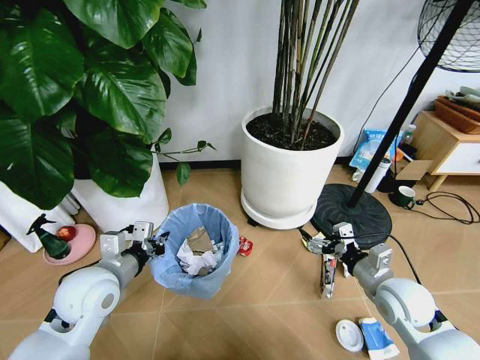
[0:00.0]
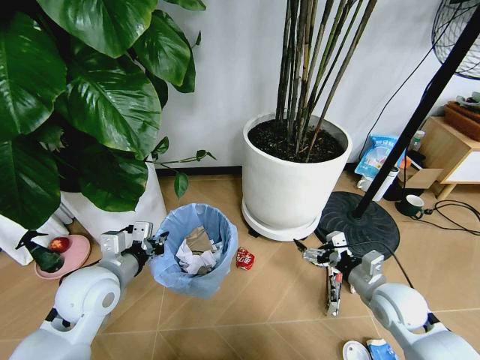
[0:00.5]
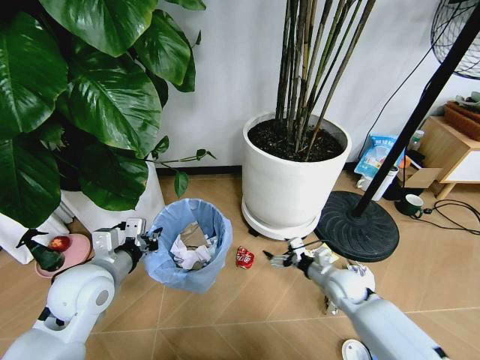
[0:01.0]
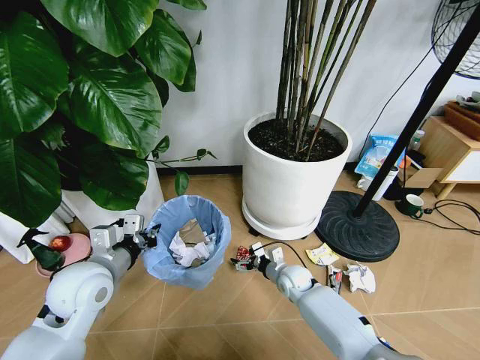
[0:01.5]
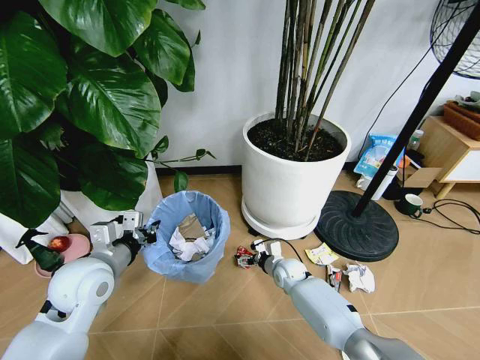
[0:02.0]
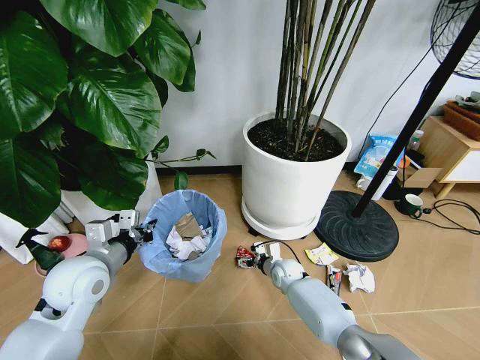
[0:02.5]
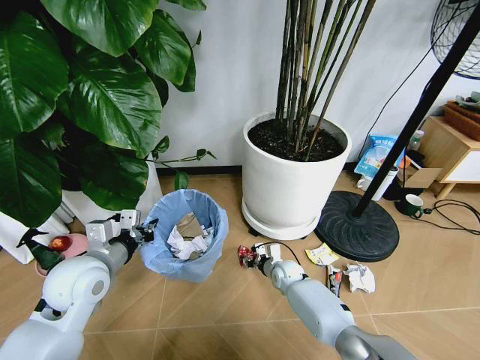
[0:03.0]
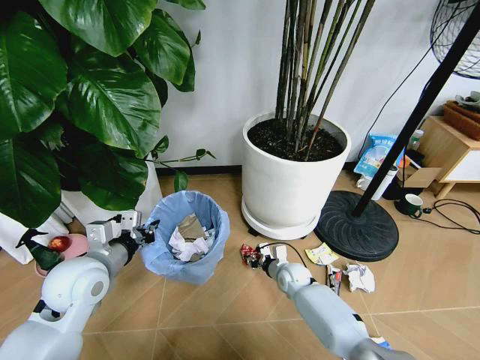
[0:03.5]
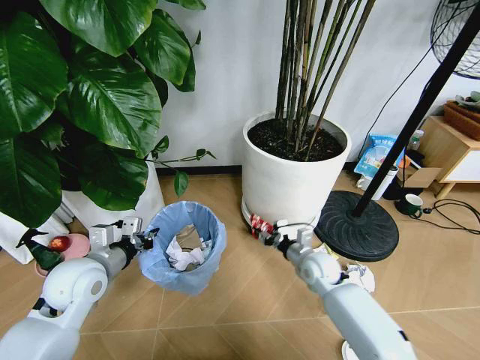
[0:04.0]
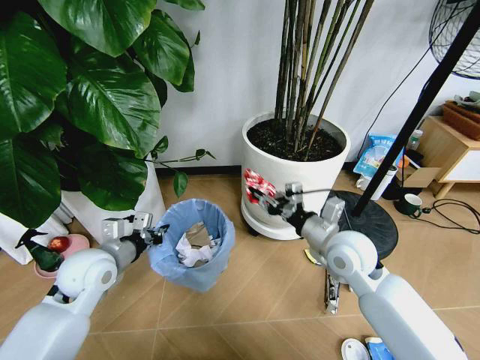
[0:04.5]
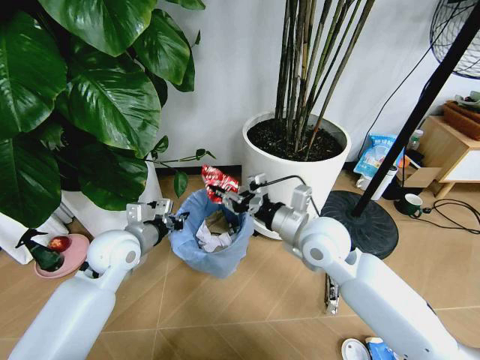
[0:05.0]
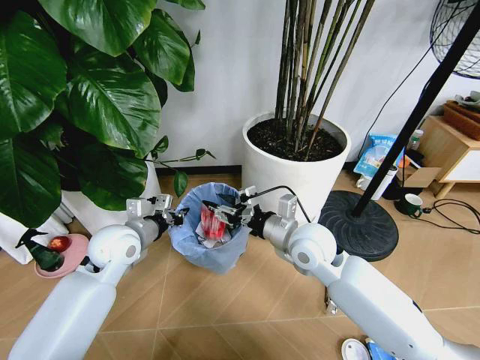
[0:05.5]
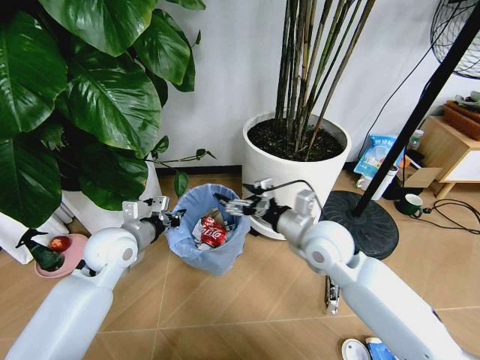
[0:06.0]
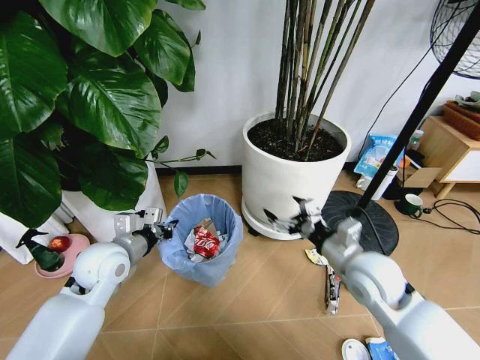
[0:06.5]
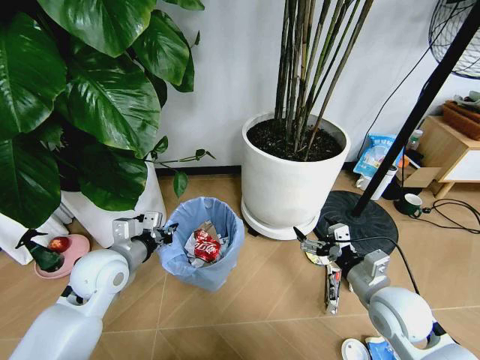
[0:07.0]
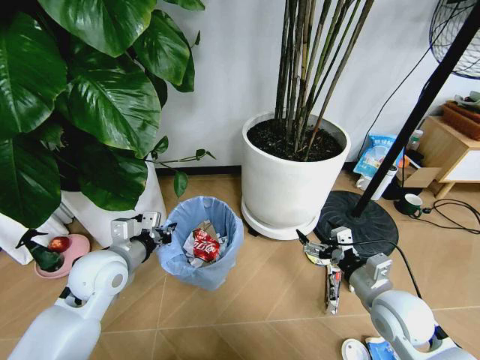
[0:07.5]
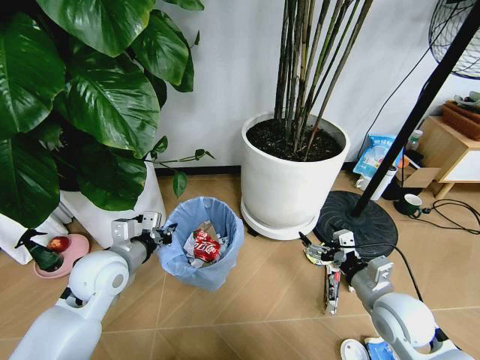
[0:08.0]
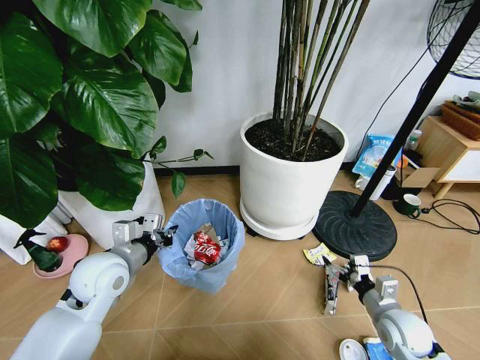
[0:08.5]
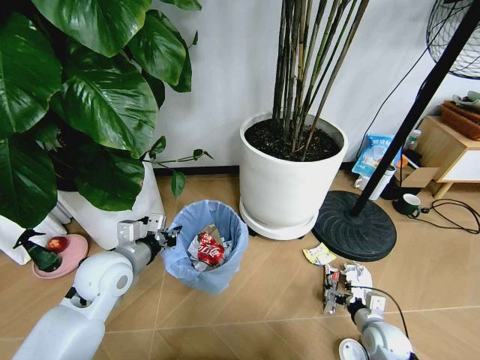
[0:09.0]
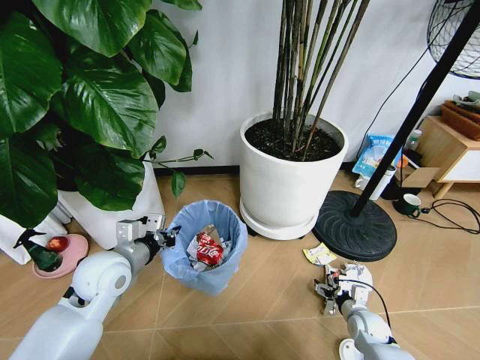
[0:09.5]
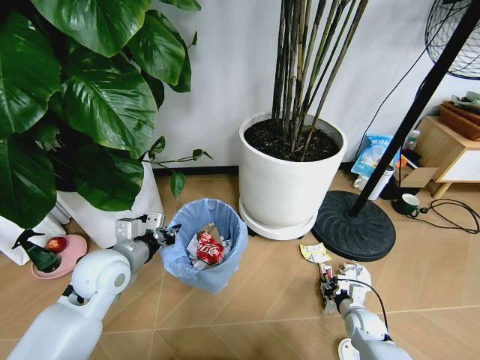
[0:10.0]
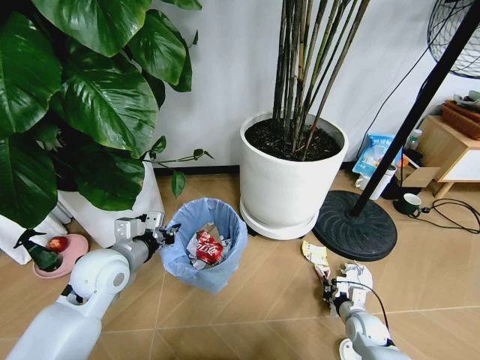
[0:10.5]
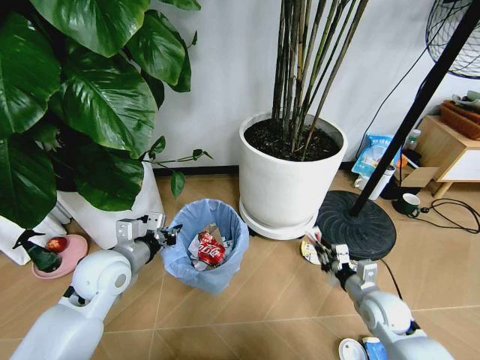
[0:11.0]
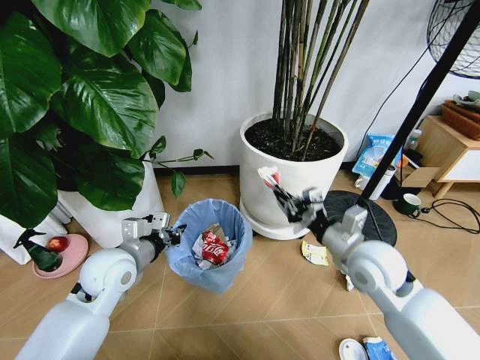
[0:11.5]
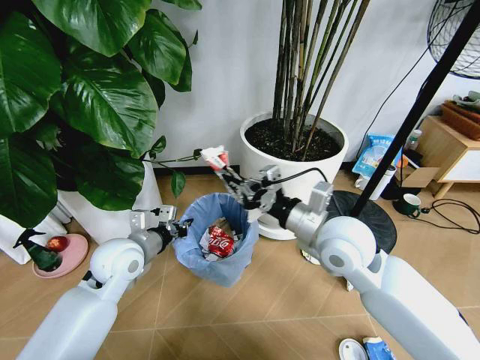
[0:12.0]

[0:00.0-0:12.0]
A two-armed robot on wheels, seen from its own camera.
Task of the whole recording: Pick up the trash bin and place the garbage on the floor into it.
0:00.0 to 0:02.0: The right gripper heads downward, to the left and forward, covering some 30 cm.
0:02.0 to 0:04.0: The right gripper shifts some 15 cm upward and to the right, and closes up.
0:04.0 to 0:06.0: The left gripper goes roughly 5 cm forward; the right gripper shifts about 15 cm upward, and opens.
0:06.0 to 0:08.0: The right gripper travels to the right, backward and downward by some 20 cm. The left gripper heads backward, covering some 5 cm.
0:08.0 to 0:10.0: The right gripper is displaced downward by roughly 25 cm, and closes up.
0:10.0 to 0:12.0: The right gripper shifts roughly 40 cm upward and to the left, and closes.

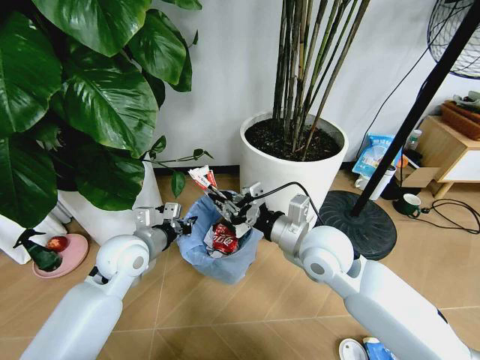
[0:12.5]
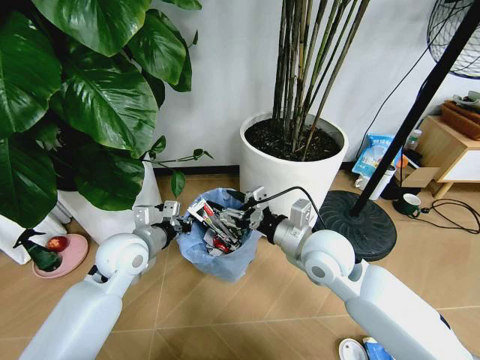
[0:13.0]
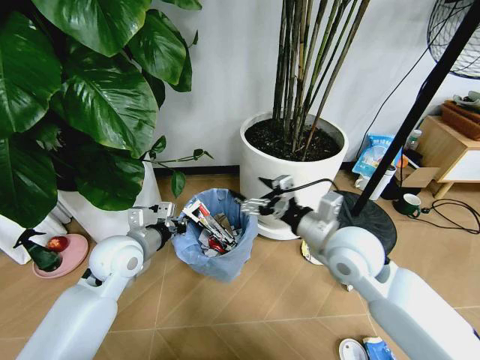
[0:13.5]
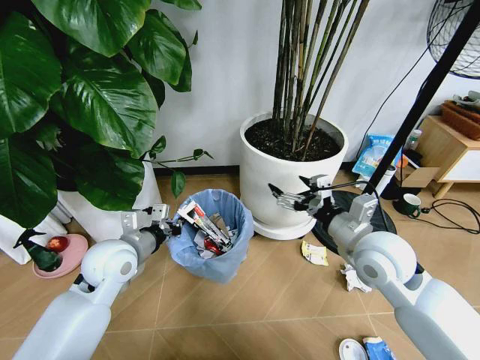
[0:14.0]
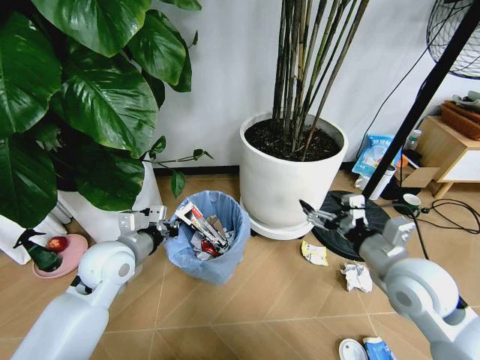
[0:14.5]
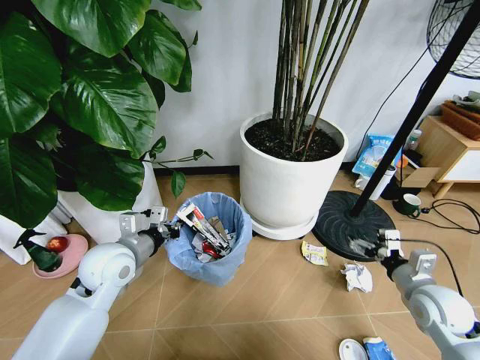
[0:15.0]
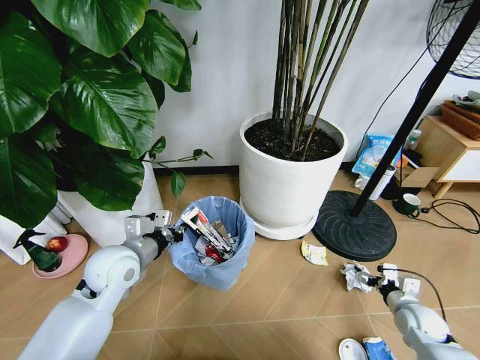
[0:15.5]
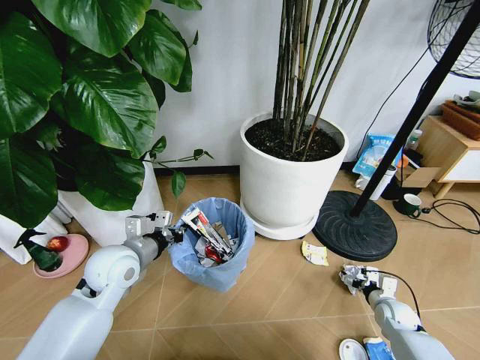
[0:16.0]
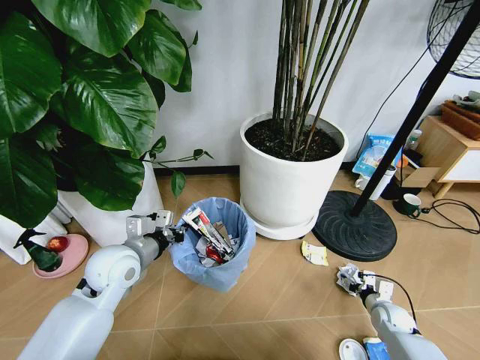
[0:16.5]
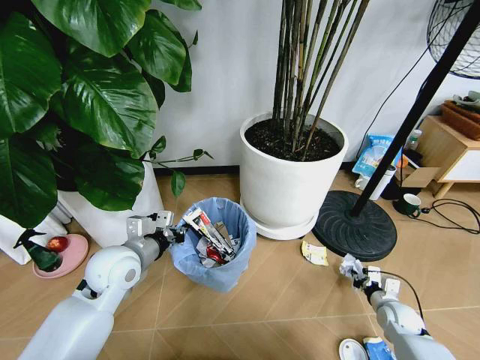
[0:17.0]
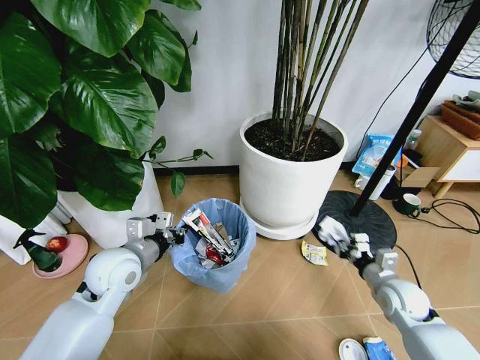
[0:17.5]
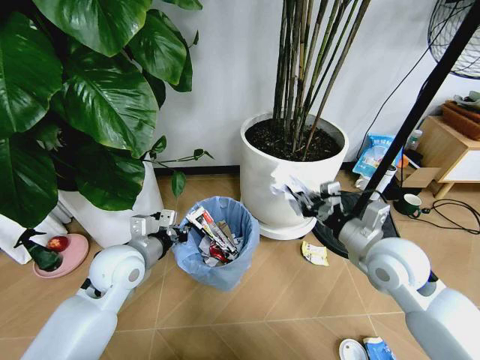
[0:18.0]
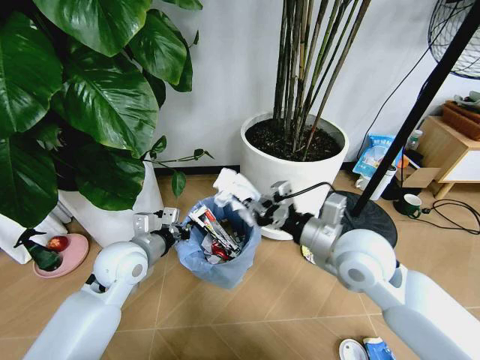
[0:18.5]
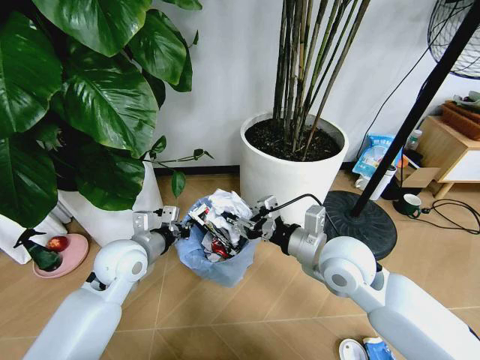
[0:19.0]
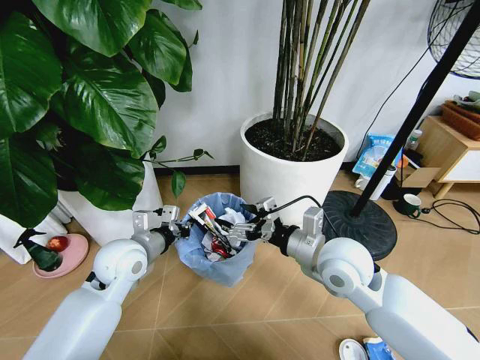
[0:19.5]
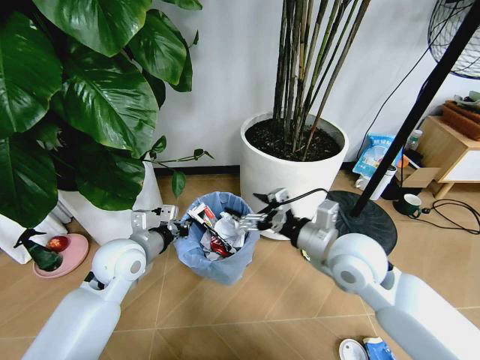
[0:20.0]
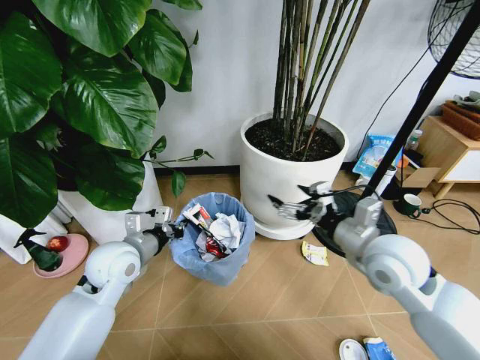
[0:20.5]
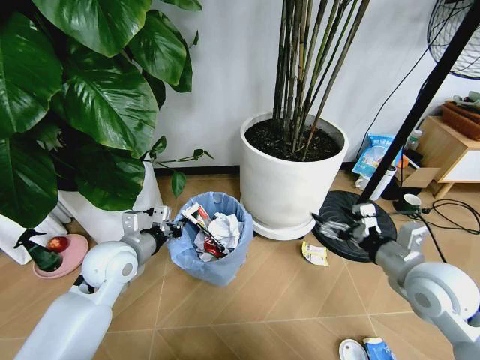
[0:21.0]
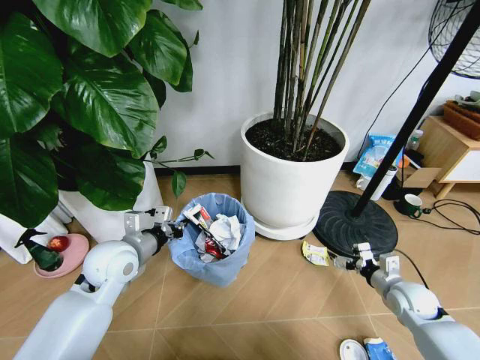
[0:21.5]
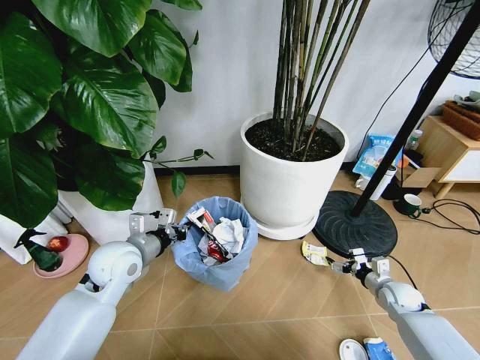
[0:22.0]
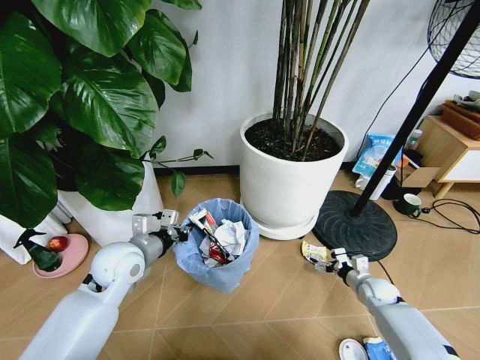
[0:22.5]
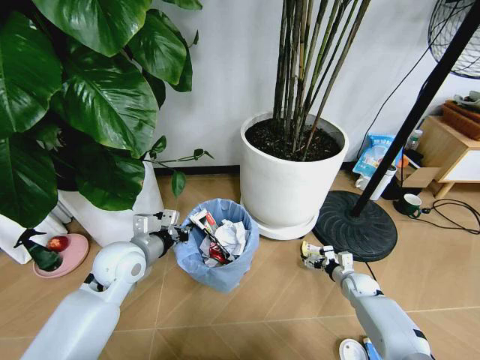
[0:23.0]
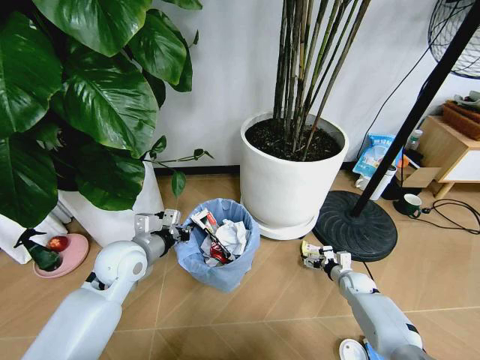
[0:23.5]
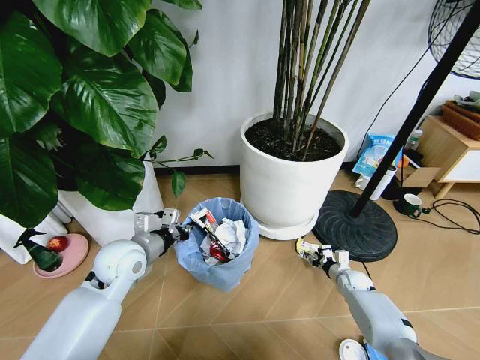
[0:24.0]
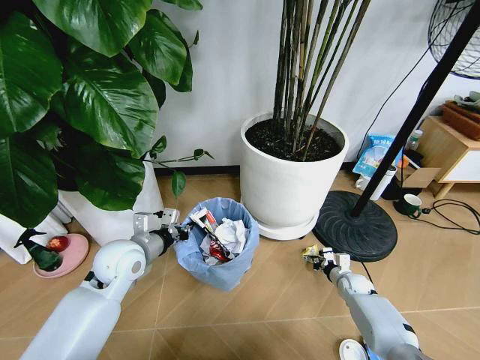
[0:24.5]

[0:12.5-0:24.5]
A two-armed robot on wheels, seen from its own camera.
Task of the whole recording: Pick up the trash bin and place the garbage on the floor into it.
0:12.5 to 0:14.5: The right gripper is displaced to the right and backward by some 15 cm, and opens.
0:14.5 to 0:16.5: The right gripper shifts approximately 35 cm downward and to the right.
0:16.5 to 0:18.5: The right gripper goes roughly 40 cm upward and to the left, and closes.
0:18.5 to 0:20.5: The right gripper goes roughly 5 cm to the right, and opens up.
0:20.5 to 0:22.5: The right gripper moves downward and to the right, about 35 cm.
0:22.5 to 0:24.5: The right gripper ends up approximately 5 cm from where it was, and closes up.

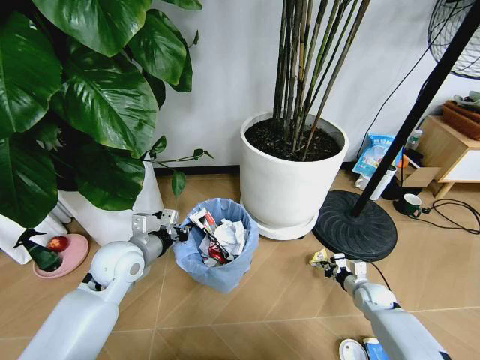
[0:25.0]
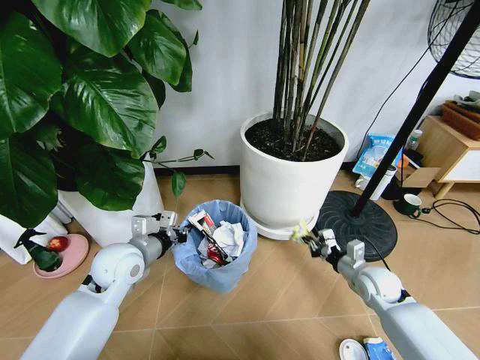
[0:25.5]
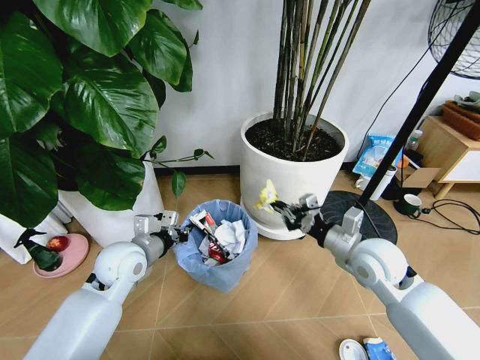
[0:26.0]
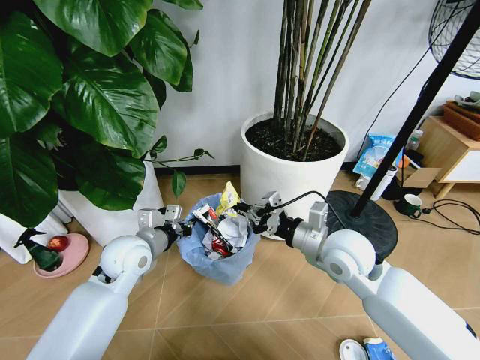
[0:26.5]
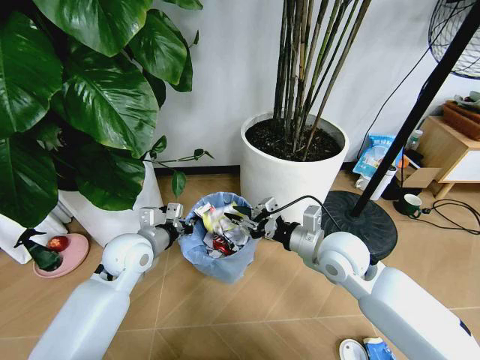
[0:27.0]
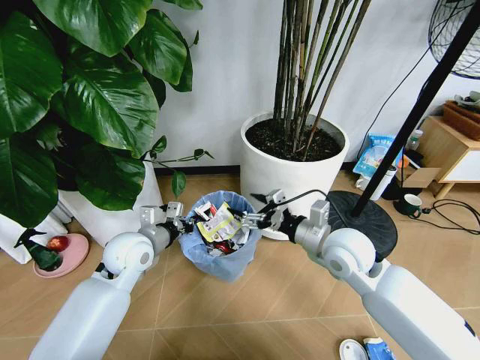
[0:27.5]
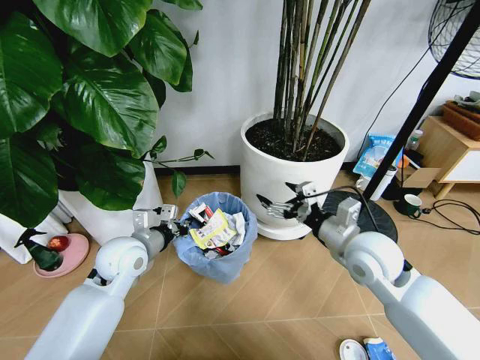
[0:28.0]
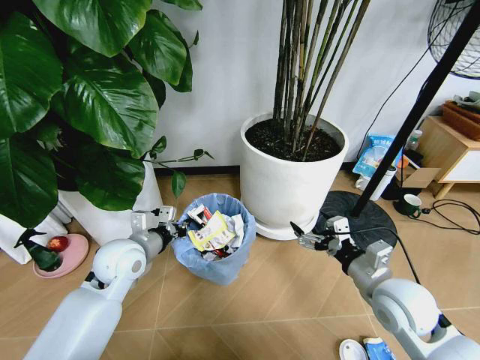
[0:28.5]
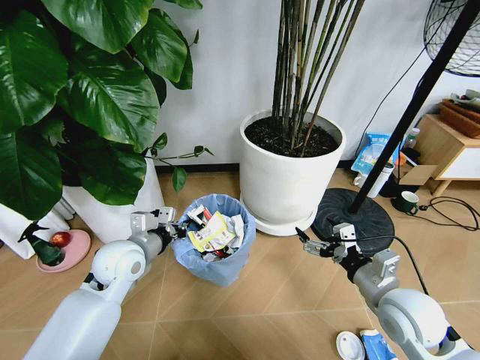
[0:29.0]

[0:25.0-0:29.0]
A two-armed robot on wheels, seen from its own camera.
Task of the whole recording: Pick up the trash bin and place the garbage on the floor into it.
0:25.0 to 0:27.0: The right gripper is displaced upward and to the left by some 35 cm, and opens its fingers.
0:27.0 to 0:29.0: The right gripper heads backward and to the right, covering about 15 cm, and opens.
